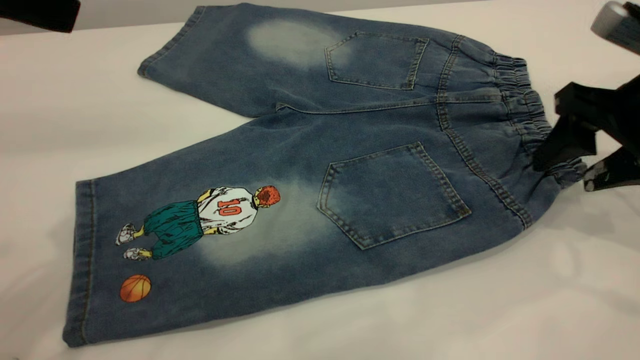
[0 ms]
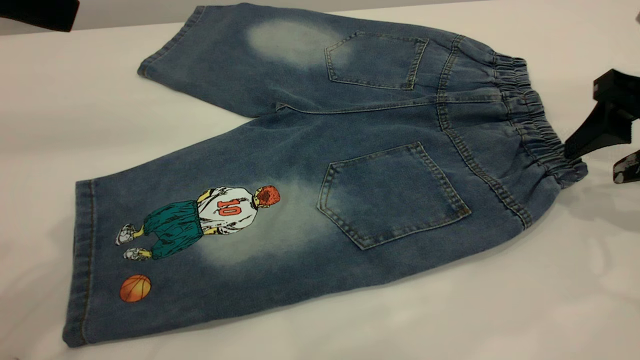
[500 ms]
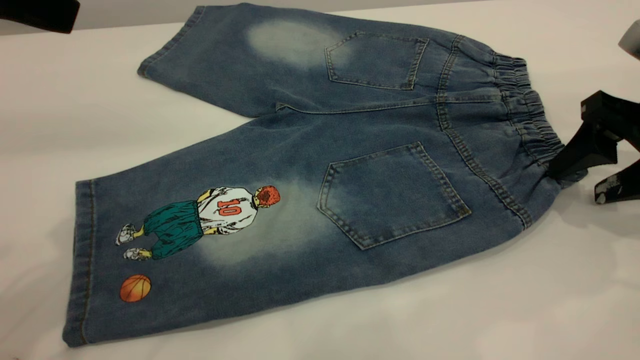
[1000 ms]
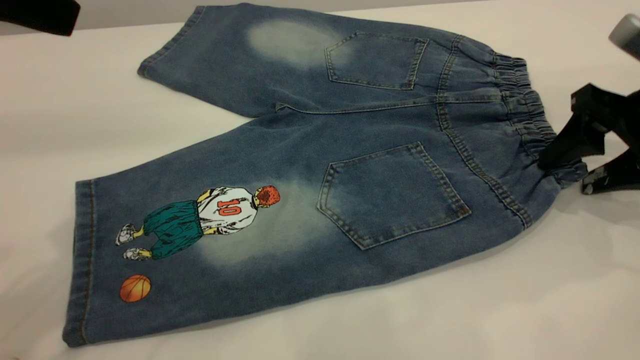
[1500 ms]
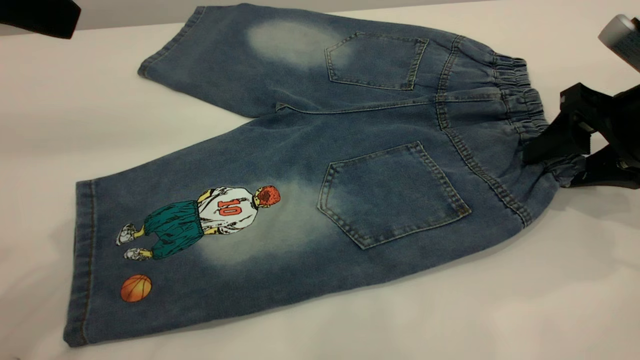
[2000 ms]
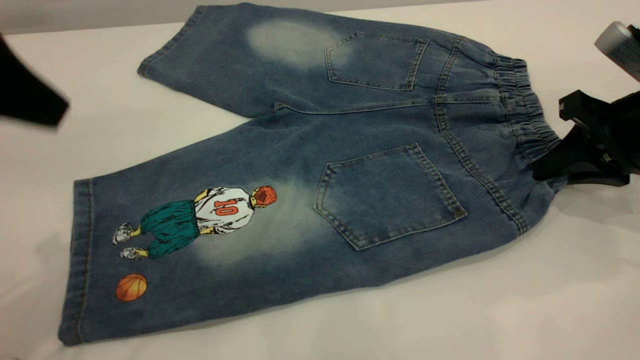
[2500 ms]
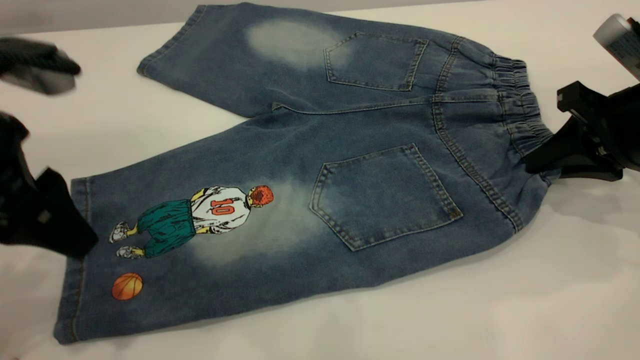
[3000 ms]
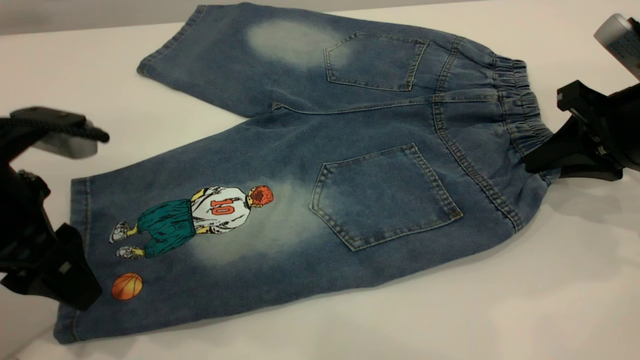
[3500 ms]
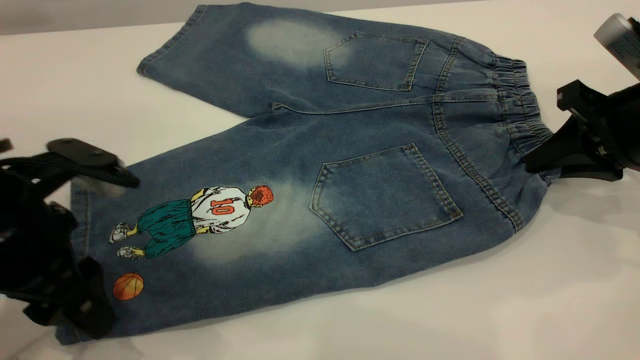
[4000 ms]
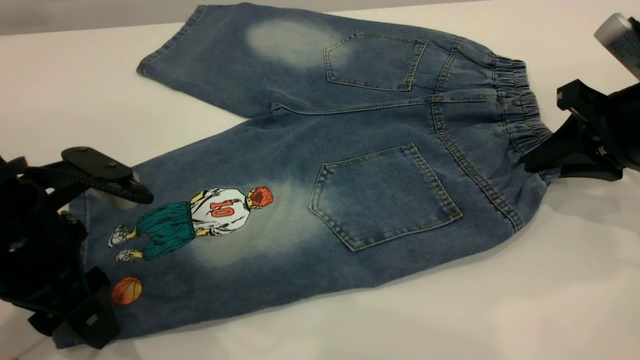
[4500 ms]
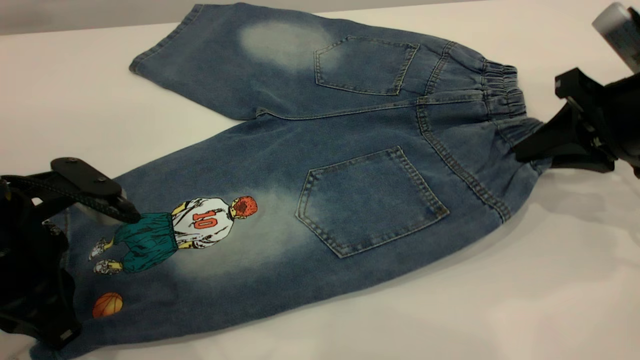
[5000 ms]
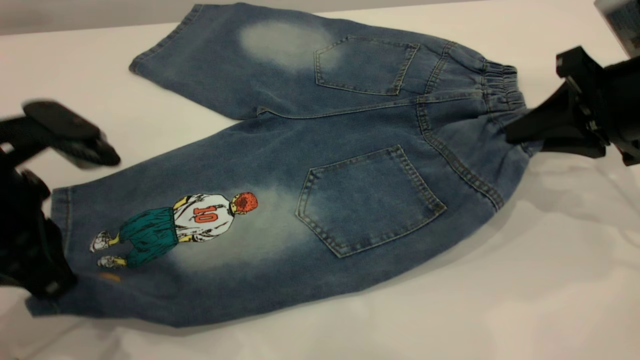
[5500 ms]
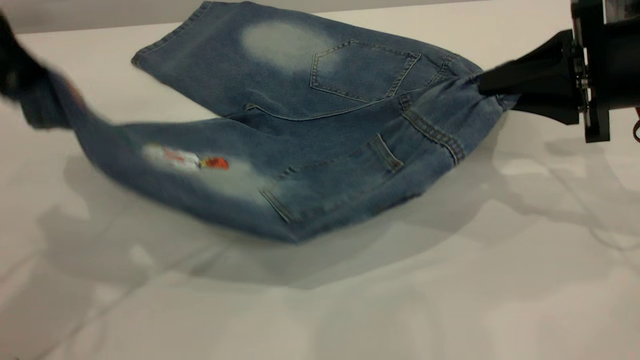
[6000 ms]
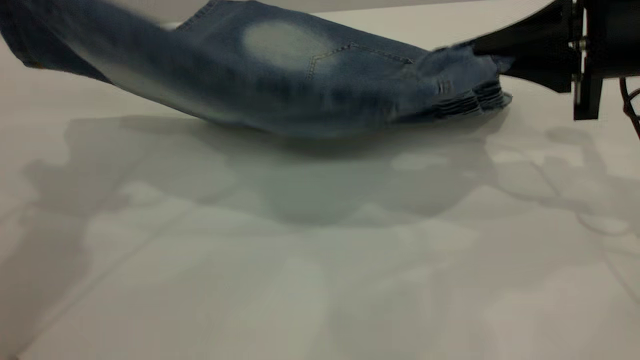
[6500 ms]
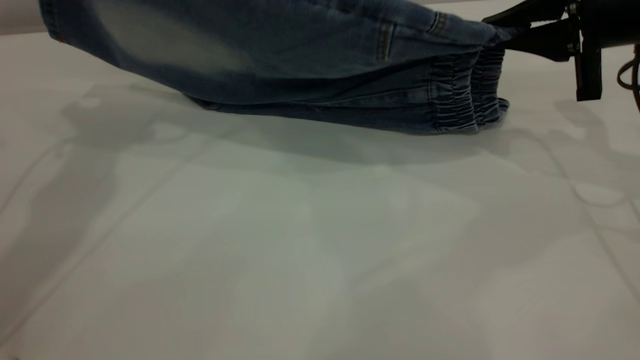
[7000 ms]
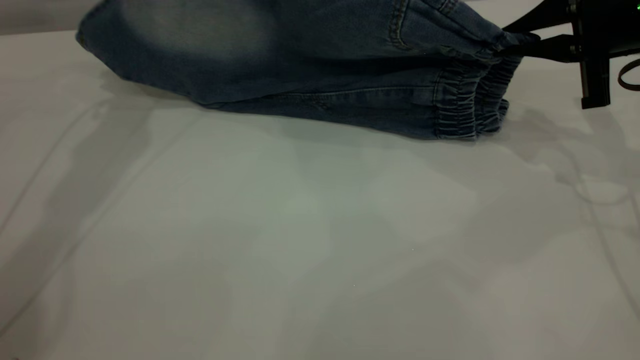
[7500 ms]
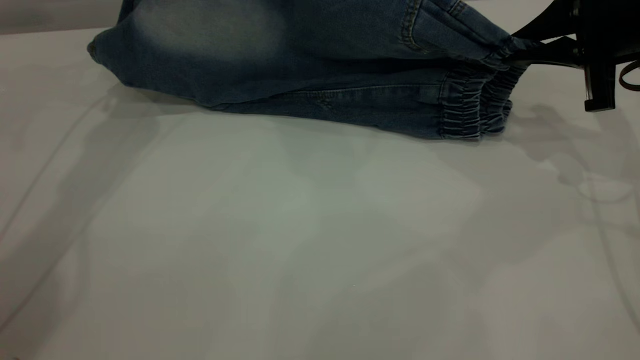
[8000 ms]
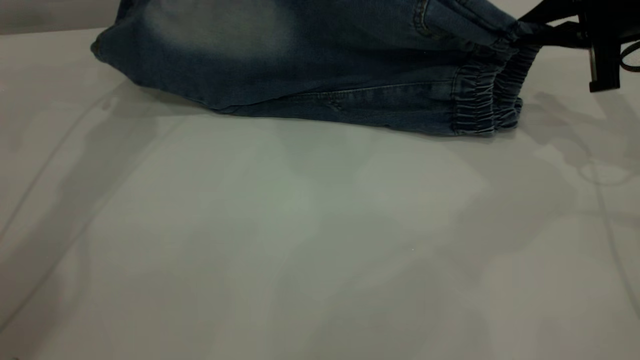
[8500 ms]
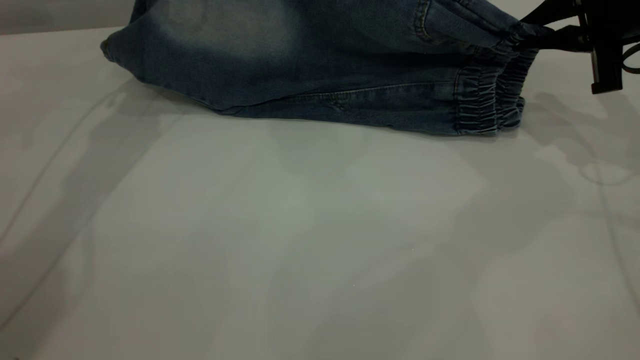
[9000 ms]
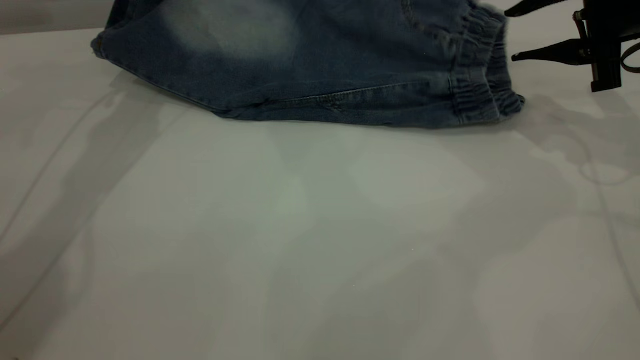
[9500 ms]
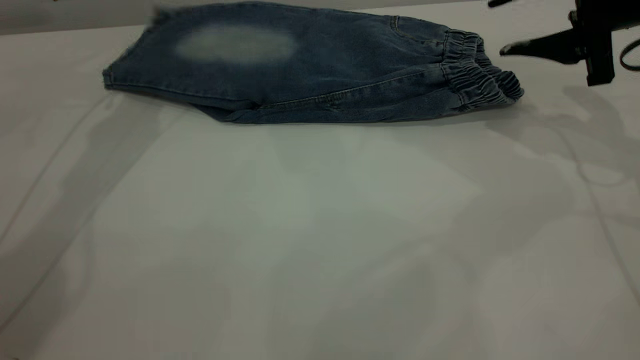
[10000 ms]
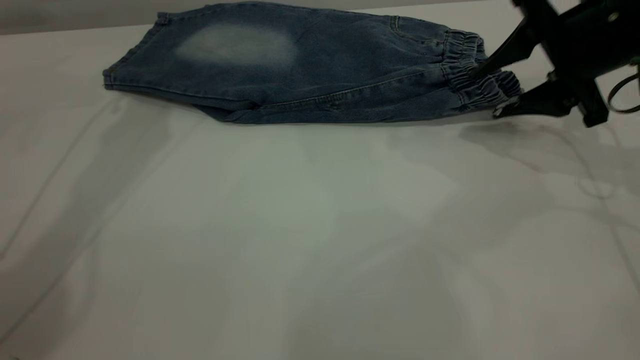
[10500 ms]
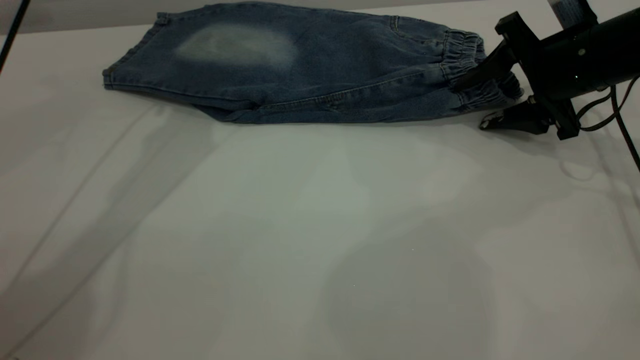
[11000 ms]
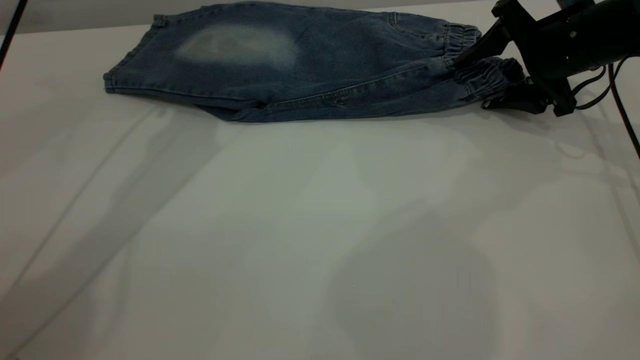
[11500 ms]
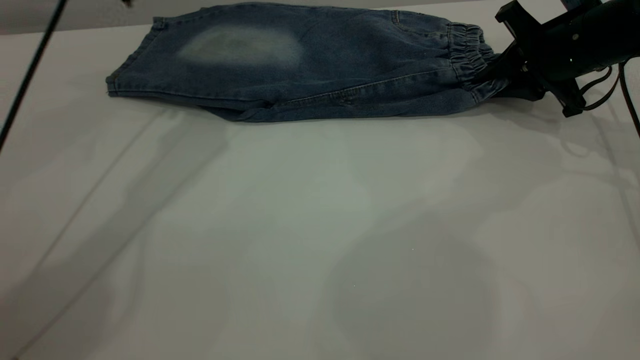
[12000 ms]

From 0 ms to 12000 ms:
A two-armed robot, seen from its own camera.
Step, from 0 ms to 10000 ms: Fold the bottom of the pants upward.
From 0 ms to 2000 ms: The grippers make only small movements.
From 2000 ms to 4000 ms: The right gripper closes up, while the left gripper heads downward, covering approximately 20 cm.
From 4000 ms to 6000 ms: The right gripper ends up roughly 5 cm from where it was, while the left gripper goes approximately 15 cm upward, and closes its fingers.
From 6000 ms to 8000 ms: The left gripper heads forward, covering some 25 cm; the right gripper goes about 5 cm forward.
From 8000 ms to 10000 ms: The right gripper opens, while the left gripper opens.
From 10000 ms to 12000 ms: The right gripper heads downward, covering approximately 5 cm, and closes up, while the left gripper travels to the right by about 10 cm.

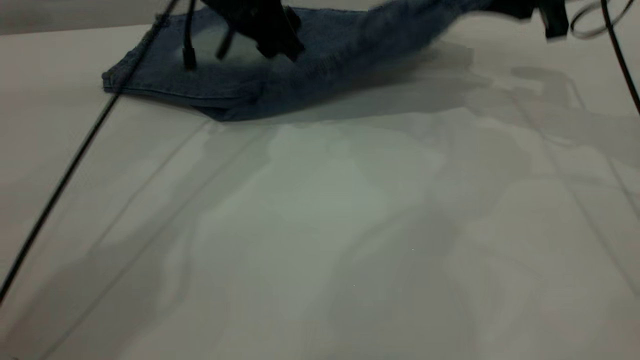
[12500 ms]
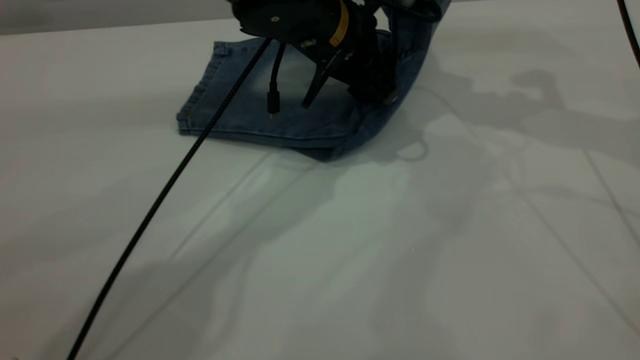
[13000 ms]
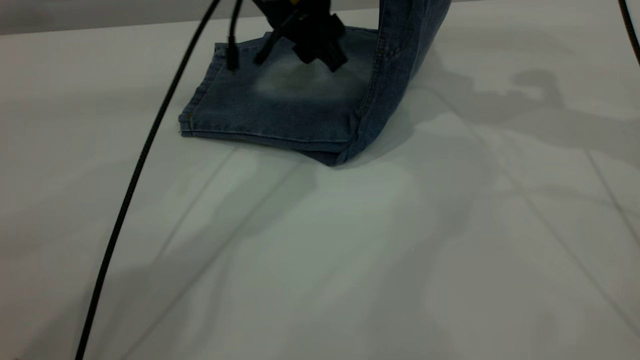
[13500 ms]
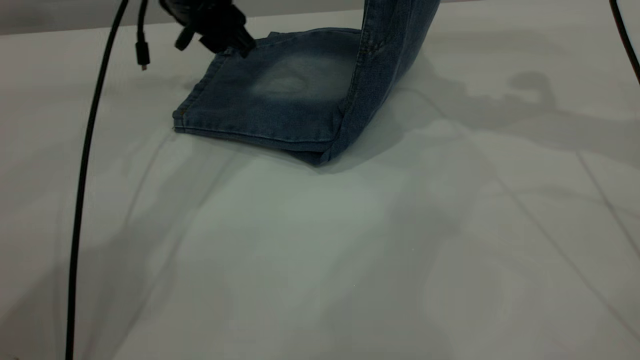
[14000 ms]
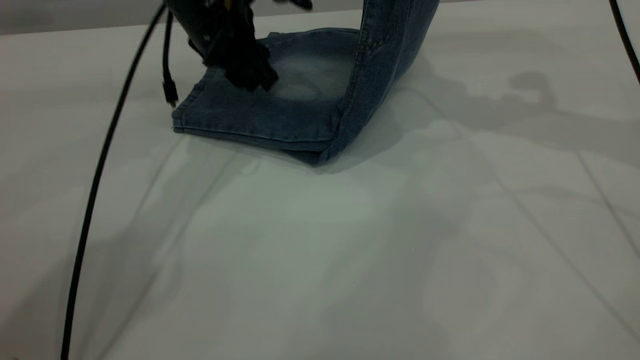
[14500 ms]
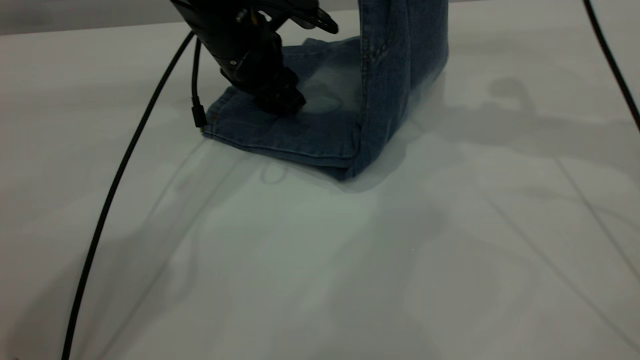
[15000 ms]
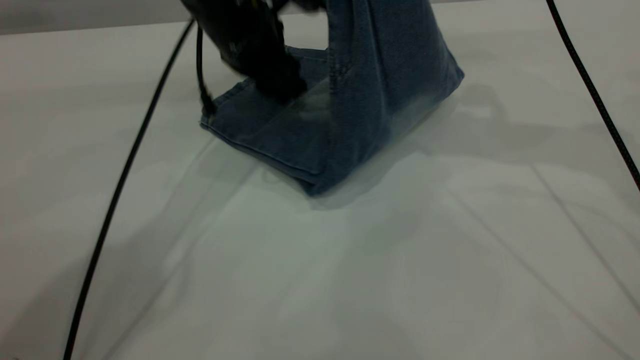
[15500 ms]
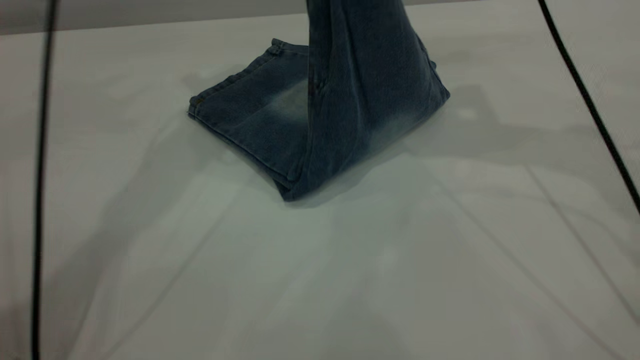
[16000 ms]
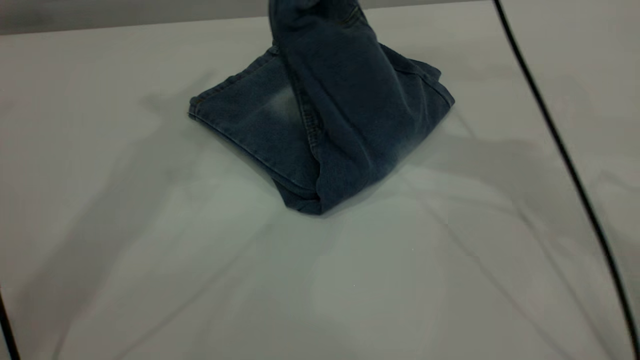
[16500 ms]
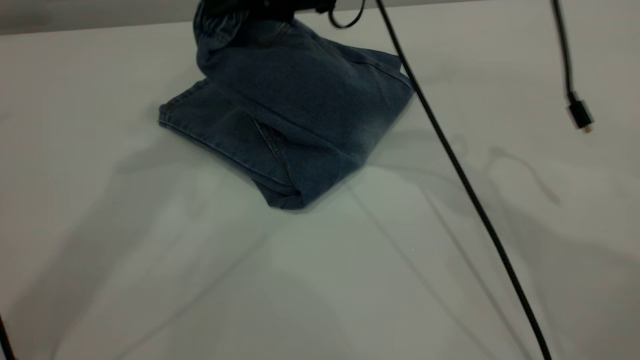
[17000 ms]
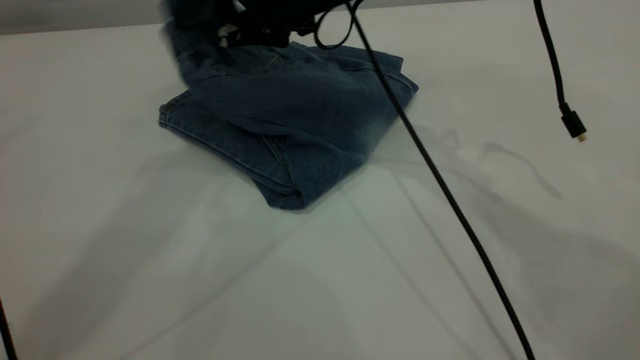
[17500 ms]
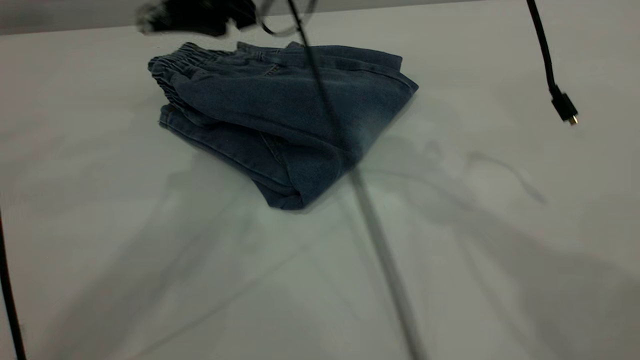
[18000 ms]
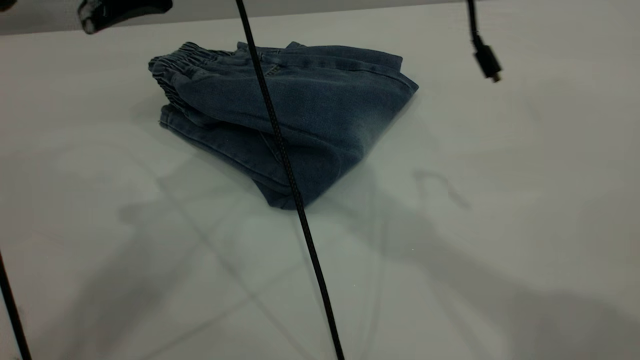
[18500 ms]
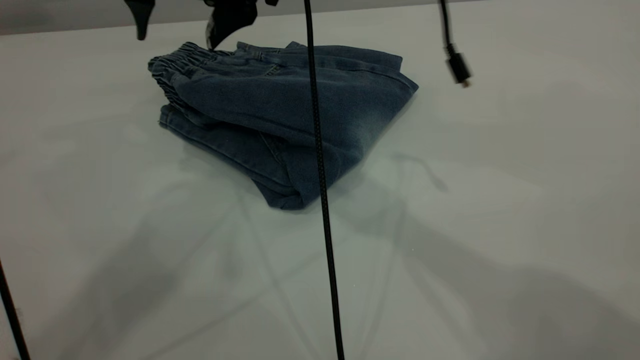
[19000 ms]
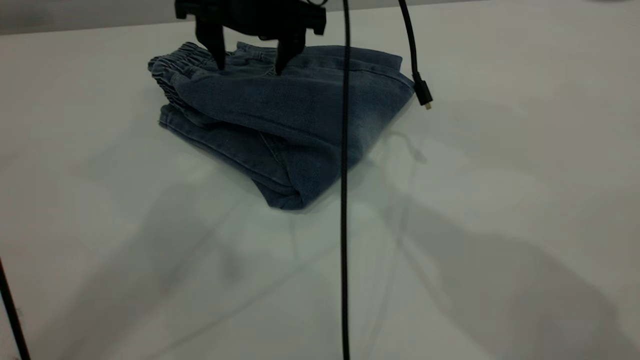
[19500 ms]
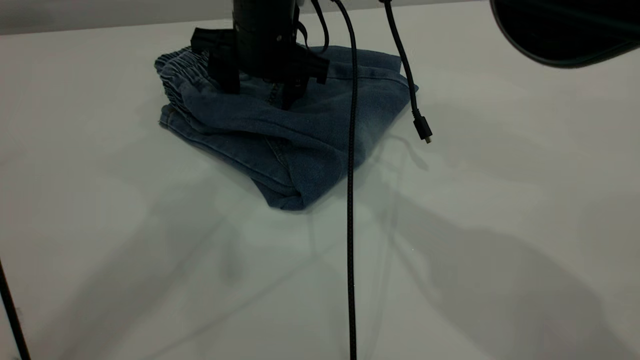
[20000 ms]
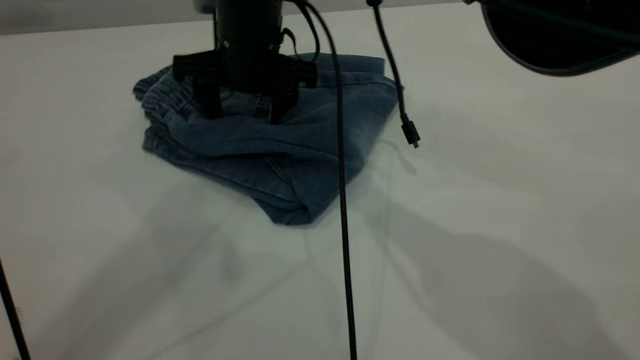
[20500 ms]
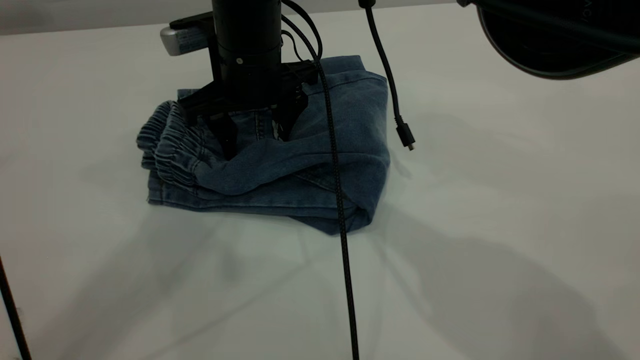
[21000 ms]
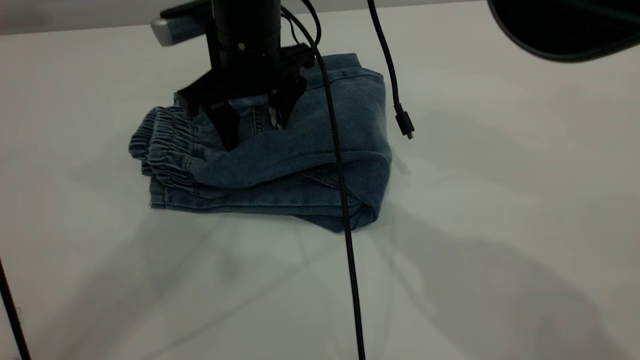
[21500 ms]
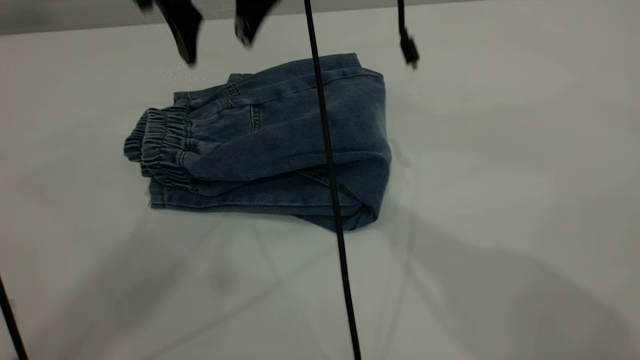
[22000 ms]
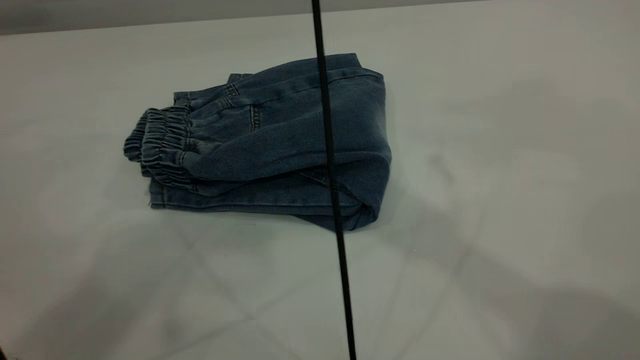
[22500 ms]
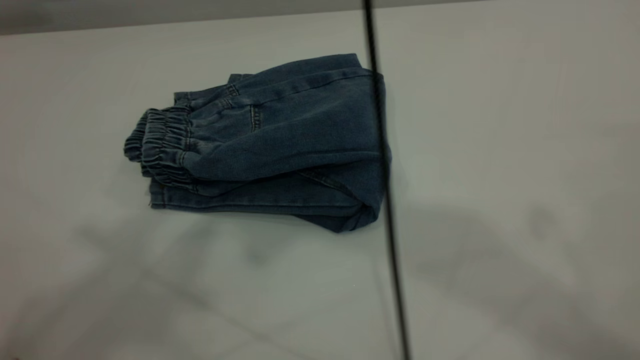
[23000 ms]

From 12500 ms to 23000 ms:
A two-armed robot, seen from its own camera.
Step, from 12500 ms to 17500 ms: Fold your pants from right to left.
From 12500 ms to 14500 ms: The left gripper reaches roughly 10 cm to the right, then returns, while the right gripper is displaced upward by approximately 5 cm.
From 14500 ms to 16500 ms: The right gripper heads to the left, covering approximately 15 cm. Meanwhile the left gripper travels upward by about 35 cm.
From 16500 ms to 19000 ms: The right gripper moves to the left, some 15 cm, and opens. The left gripper moves backward and to the right, some 10 cm.
From 19000 ms to 21000 ms: The right gripper is displaced downward by some 10 cm.
From 21000 ms to 23000 ms: The right gripper shifts roughly 40 cm upward. The left gripper moves backward, upward and to the left, about 15 cm.
